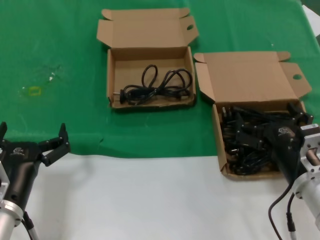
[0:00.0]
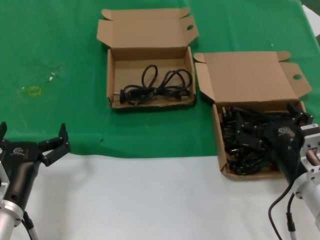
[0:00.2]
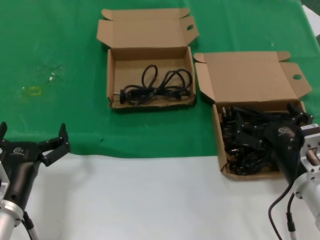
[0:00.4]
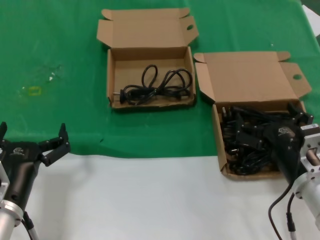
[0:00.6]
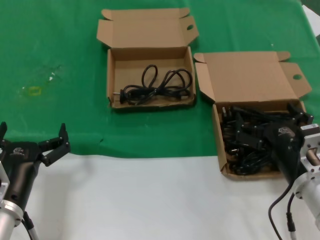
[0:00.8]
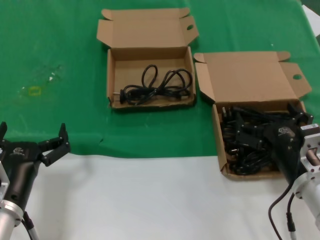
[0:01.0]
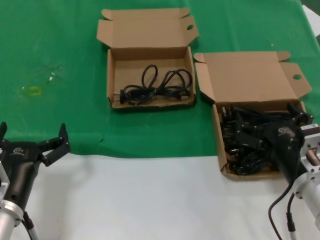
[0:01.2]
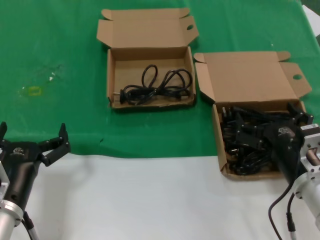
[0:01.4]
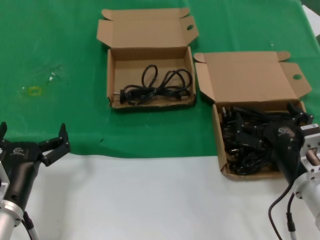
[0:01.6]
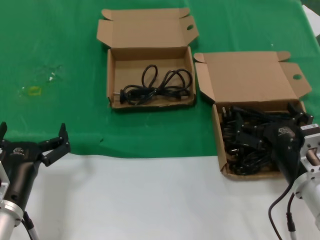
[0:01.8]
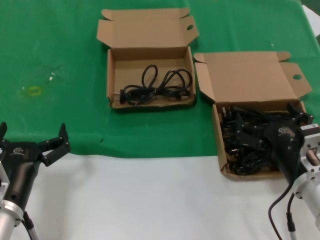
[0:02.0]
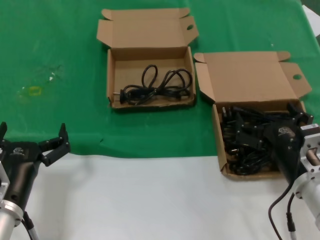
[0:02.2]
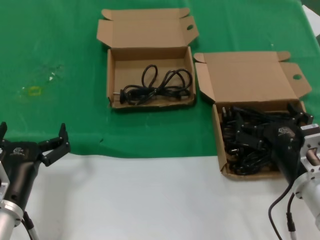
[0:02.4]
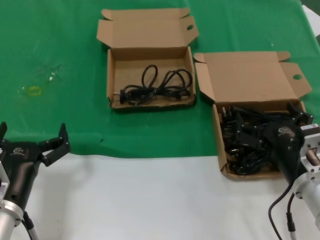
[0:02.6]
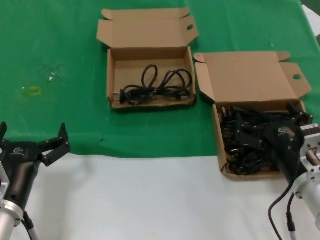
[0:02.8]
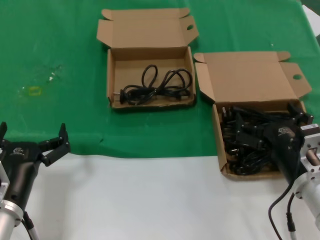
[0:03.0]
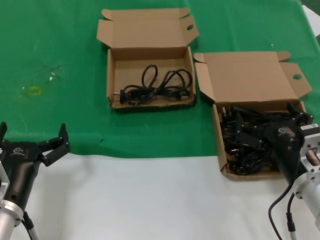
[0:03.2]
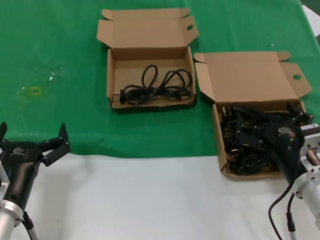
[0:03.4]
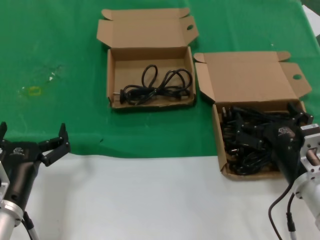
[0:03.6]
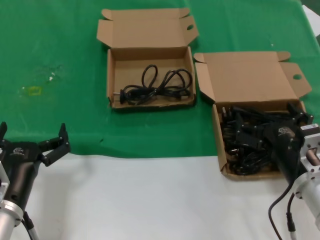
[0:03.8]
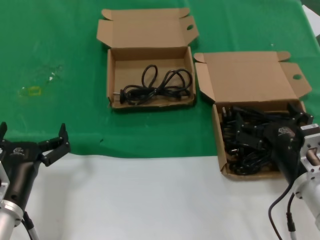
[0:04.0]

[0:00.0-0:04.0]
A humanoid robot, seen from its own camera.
Task of the whole recording: take the parts from the box containing them and put them into an empty box.
0:00.0 to 0:04.0: Both hands stay put.

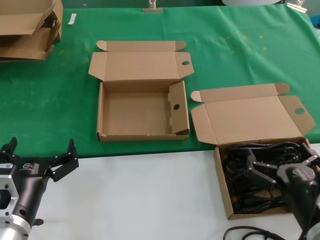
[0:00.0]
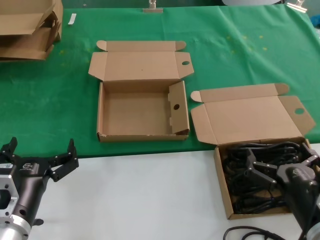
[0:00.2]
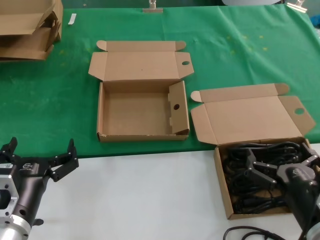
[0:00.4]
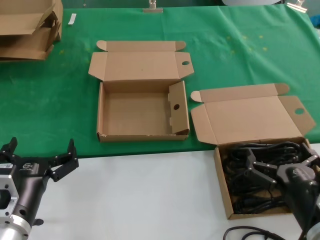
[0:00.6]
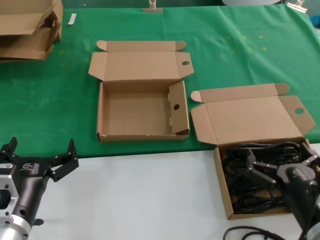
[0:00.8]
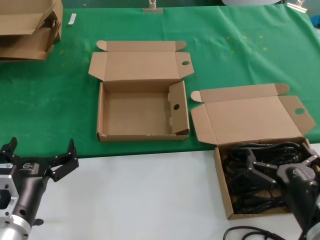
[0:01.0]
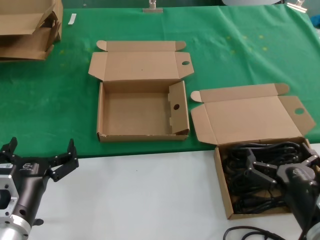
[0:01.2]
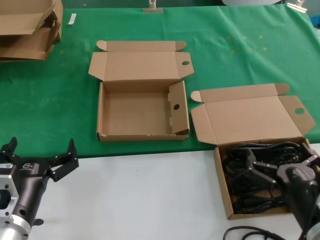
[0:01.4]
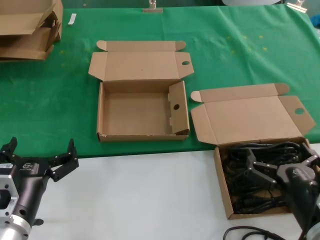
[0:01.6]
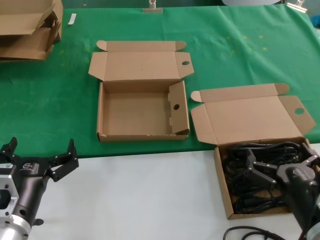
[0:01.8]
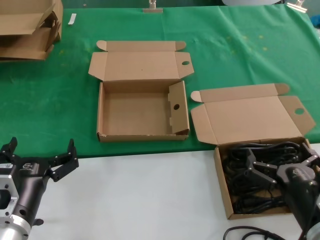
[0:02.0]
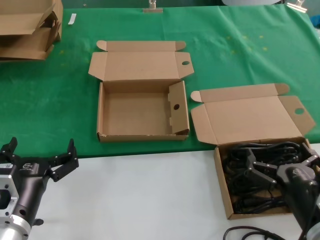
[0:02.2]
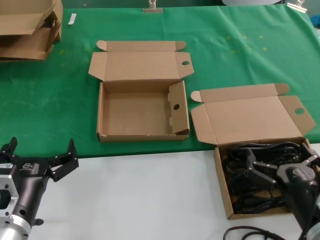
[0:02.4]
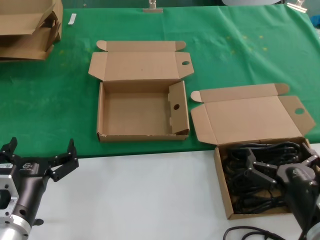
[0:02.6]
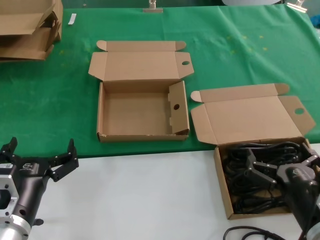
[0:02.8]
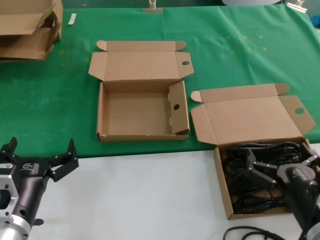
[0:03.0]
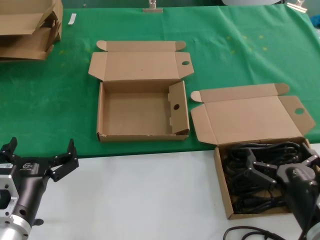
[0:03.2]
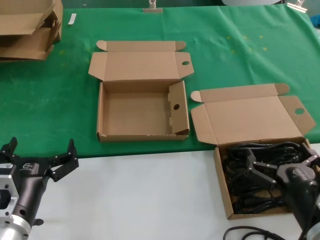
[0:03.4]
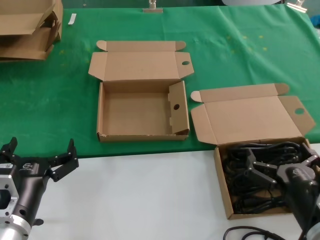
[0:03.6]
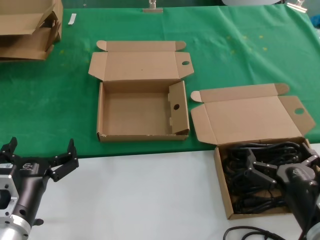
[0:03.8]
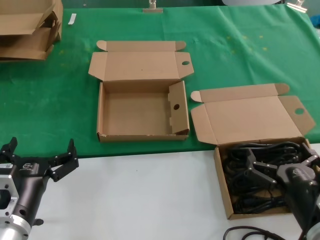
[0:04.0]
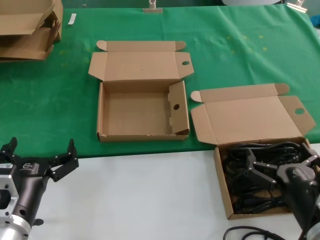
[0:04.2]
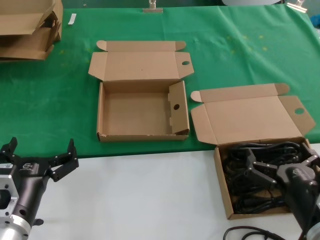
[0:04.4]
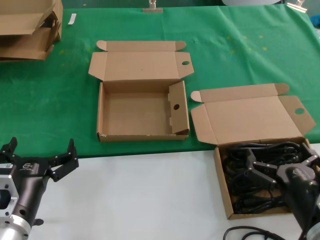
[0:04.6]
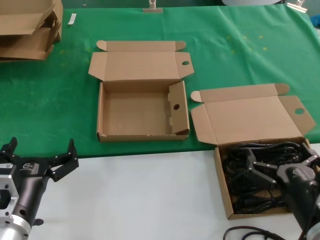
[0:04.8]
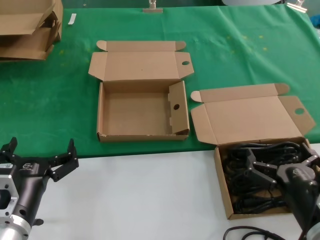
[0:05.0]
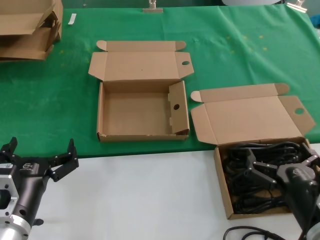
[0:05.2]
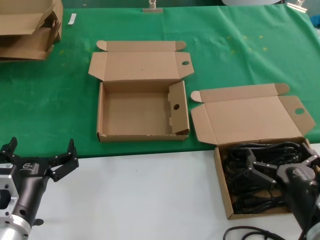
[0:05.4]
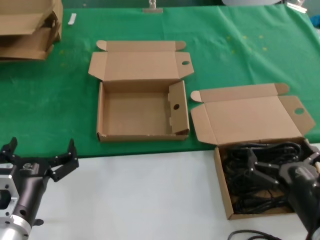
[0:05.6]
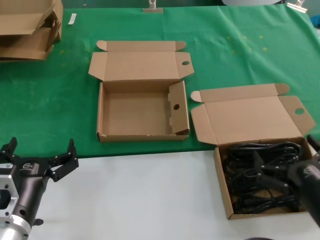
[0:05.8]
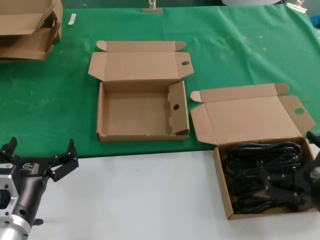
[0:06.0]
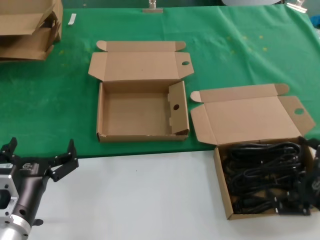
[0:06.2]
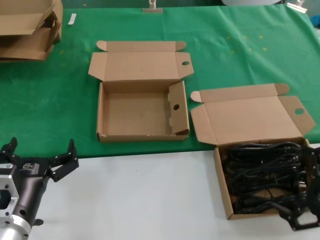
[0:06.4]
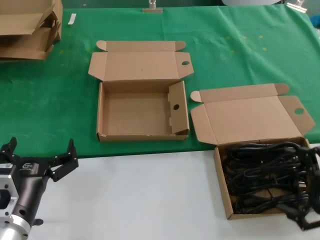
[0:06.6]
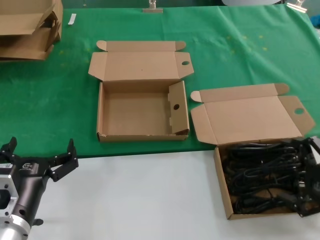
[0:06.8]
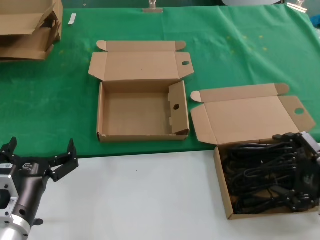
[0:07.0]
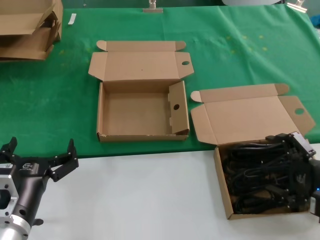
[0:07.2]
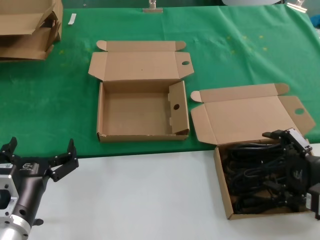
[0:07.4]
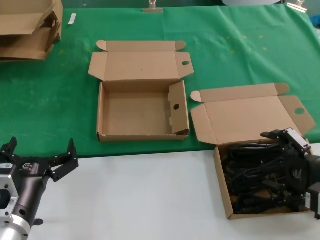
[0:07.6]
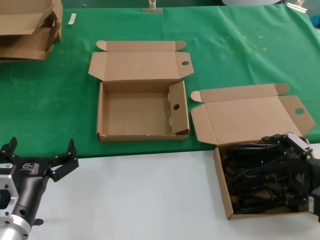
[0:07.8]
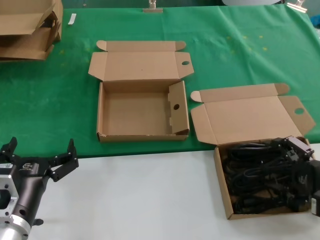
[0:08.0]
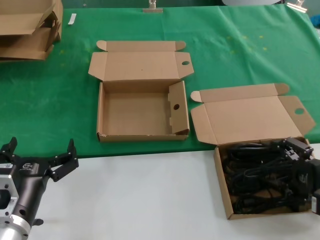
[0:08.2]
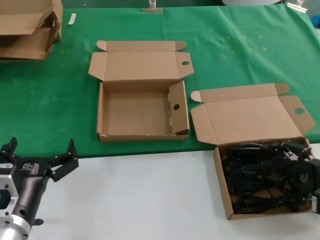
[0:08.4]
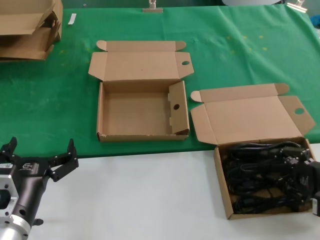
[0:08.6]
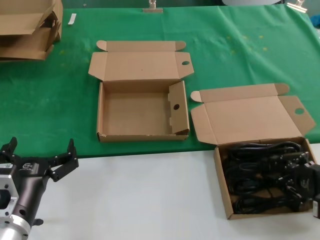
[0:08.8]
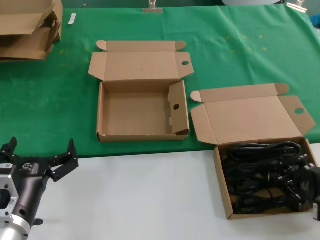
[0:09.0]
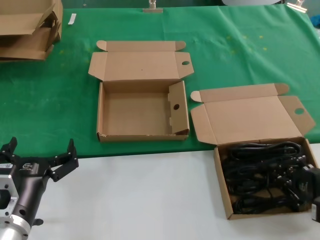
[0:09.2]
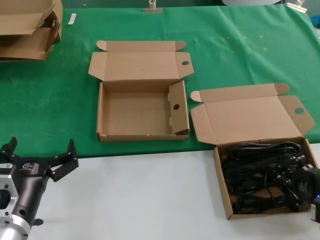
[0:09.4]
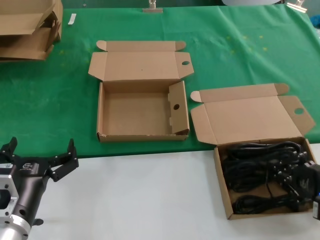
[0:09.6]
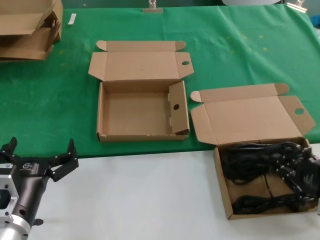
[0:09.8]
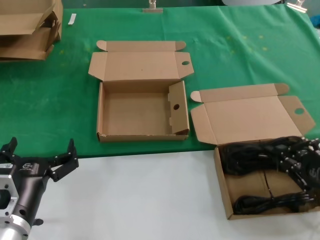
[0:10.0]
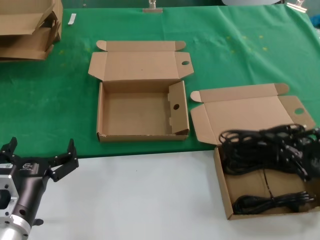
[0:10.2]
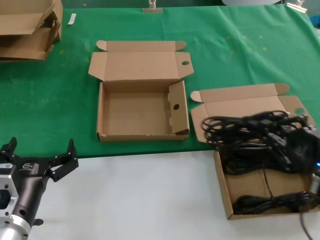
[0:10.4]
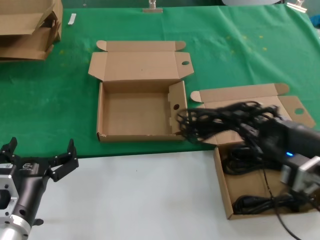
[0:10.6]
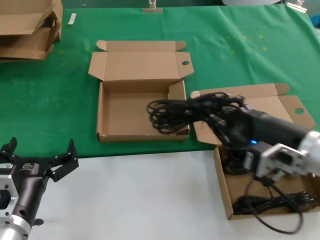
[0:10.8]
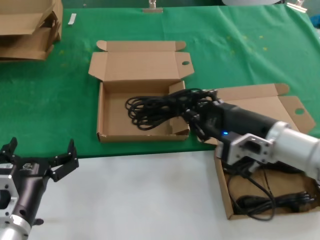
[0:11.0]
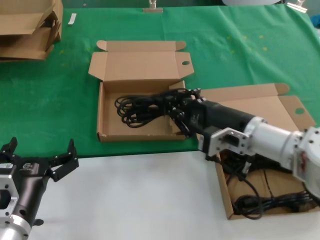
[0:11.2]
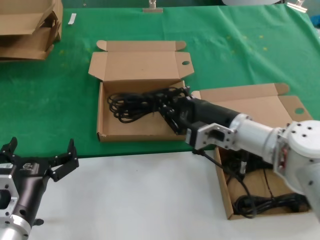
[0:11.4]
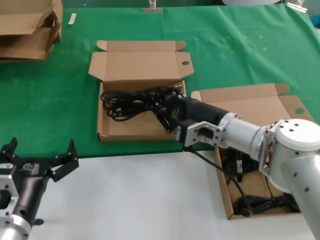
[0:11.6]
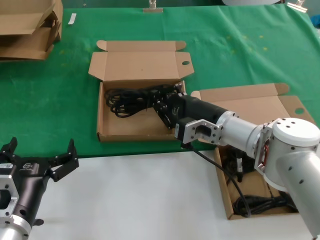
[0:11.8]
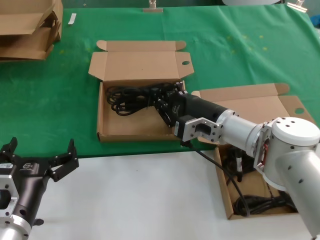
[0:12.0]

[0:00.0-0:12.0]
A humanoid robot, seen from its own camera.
Task of the whole recording: take the parts from the box containing them and put them into an empty box.
Step, 0:00.0 to 0:08.6: Grasp the data cable.
0:00.0 to 0:04.4: Both hands stay about where they are.
0:04.4 to 0:06.0: The right hand is displaced to the right by about 5 cm.
0:06.0 to 0:07.6: The right hand is displaced forward and to the right by approximately 10 cm.
0:07.6 to 0:09.0: There are only small adjustments of the hands.
0:09.0 to 0:10.4: The right hand shifts about 10 cm upward.
0:10.4 to 0:12.0: The right hand goes approximately 25 cm forward and to the left.

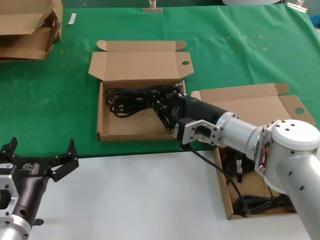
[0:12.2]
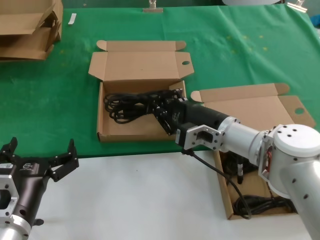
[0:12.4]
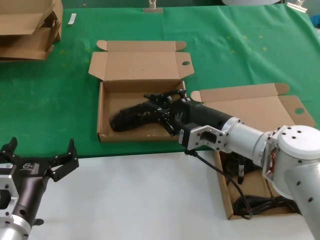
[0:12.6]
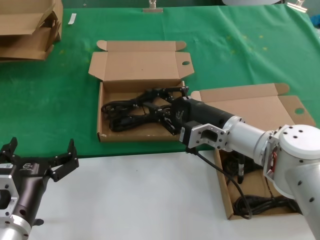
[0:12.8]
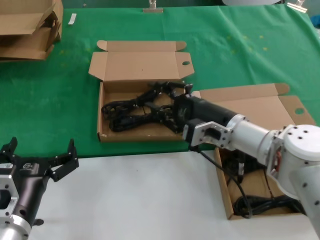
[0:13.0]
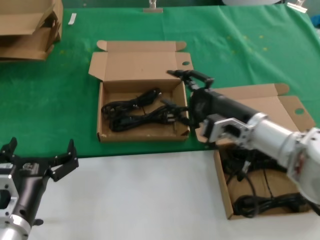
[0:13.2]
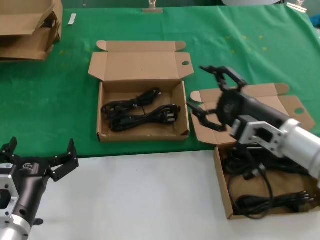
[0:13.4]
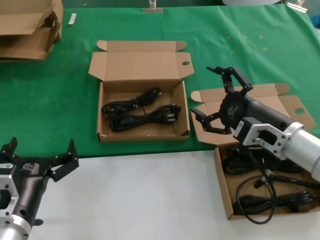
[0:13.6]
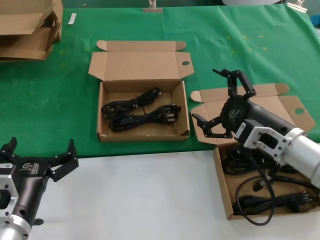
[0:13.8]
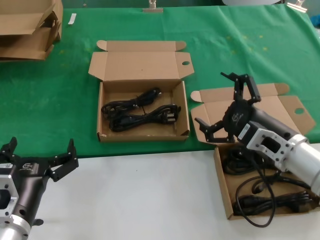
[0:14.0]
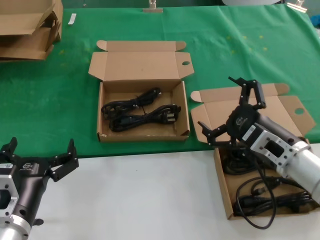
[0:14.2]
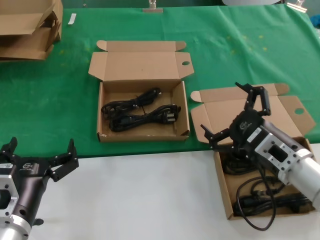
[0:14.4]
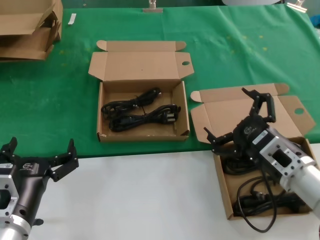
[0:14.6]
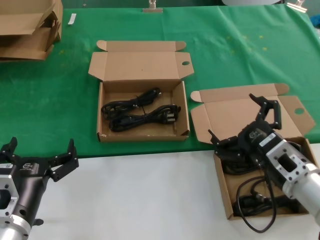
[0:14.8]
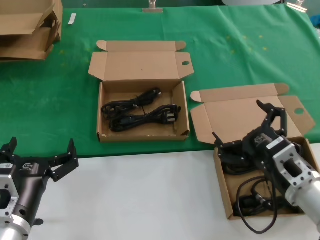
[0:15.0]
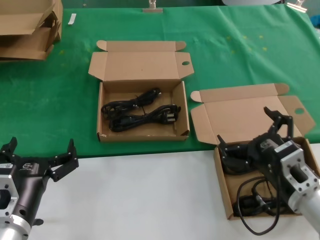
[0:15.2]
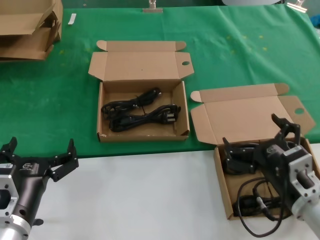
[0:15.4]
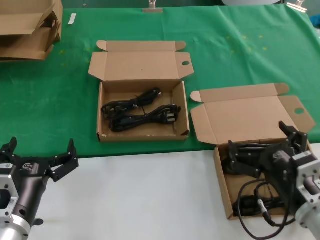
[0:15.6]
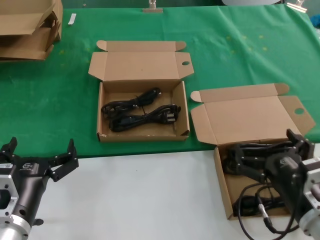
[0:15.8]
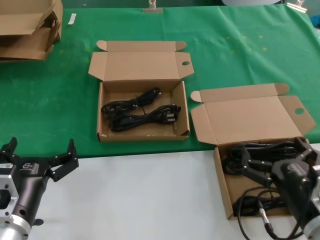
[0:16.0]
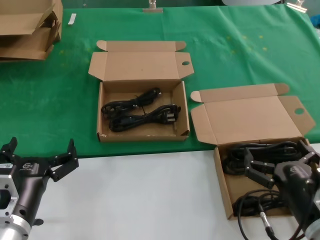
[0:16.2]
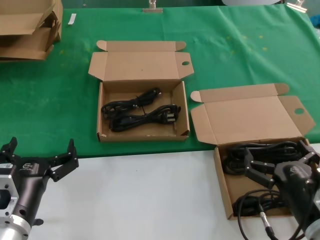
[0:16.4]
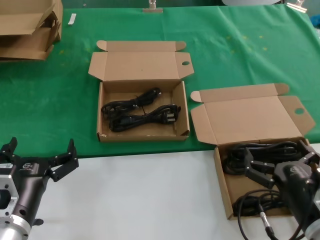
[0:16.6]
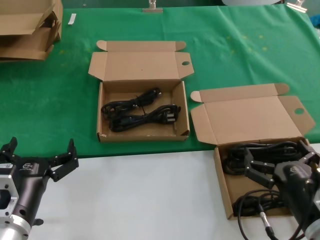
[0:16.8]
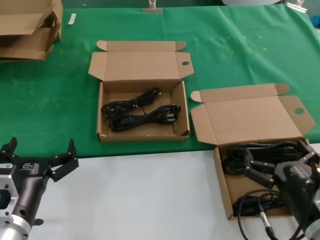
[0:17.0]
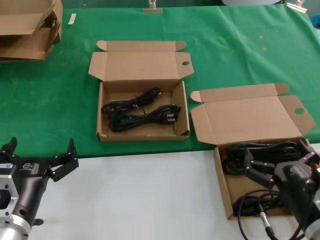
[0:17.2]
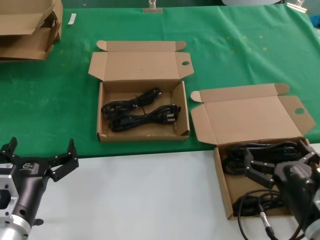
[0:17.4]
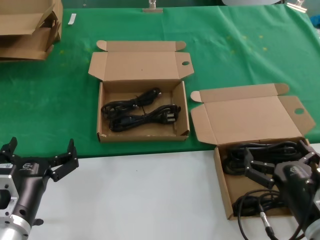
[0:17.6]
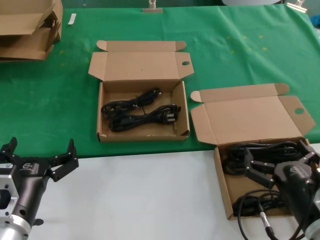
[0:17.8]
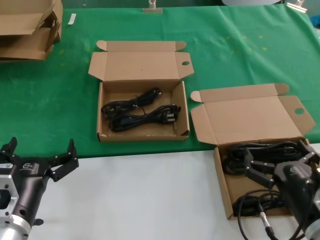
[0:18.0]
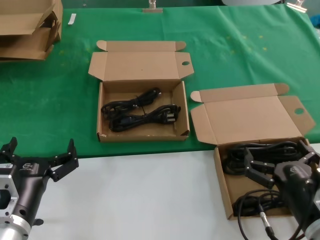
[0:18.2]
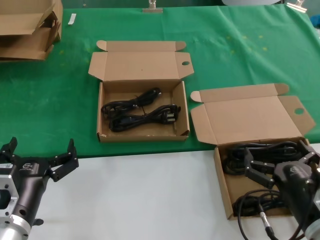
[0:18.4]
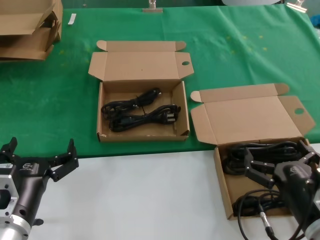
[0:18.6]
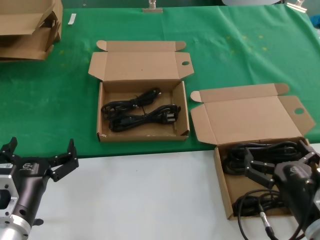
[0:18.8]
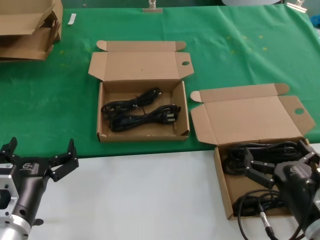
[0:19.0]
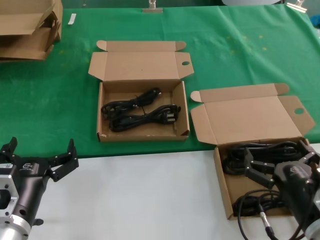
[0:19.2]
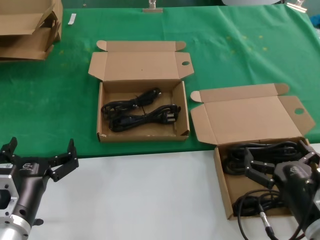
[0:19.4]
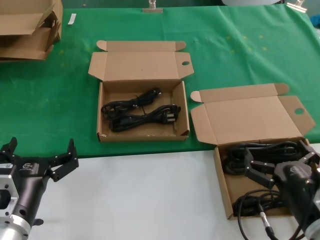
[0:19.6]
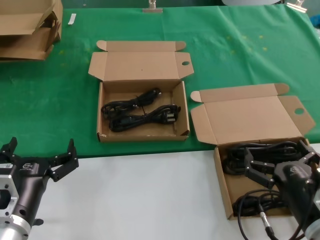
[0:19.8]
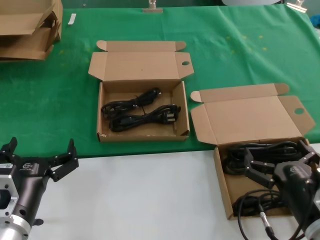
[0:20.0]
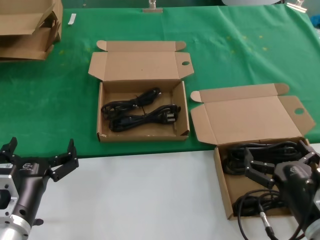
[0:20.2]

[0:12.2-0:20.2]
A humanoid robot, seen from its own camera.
Task of the whole recording: take the parts from the box containing them and put them into an empty box.
0:12.2 to 0:13.8: The right hand moves to the right and backward, roughly 10 cm.
0:13.8 to 0:15.4: The right hand is displaced backward and downward by roughly 10 cm.
0:15.4 to 0:17.0: The right hand shifts by some 5 cm.
0:17.0 to 0:20.2: Both hands stay about where they are.
